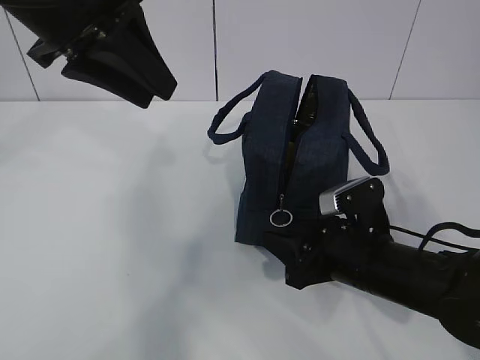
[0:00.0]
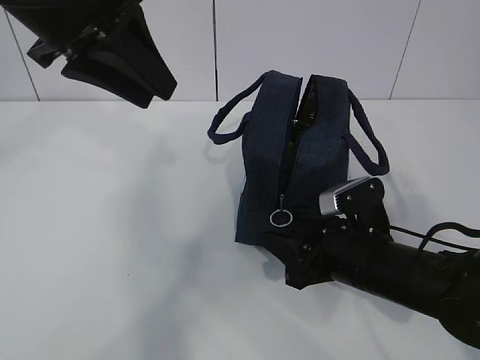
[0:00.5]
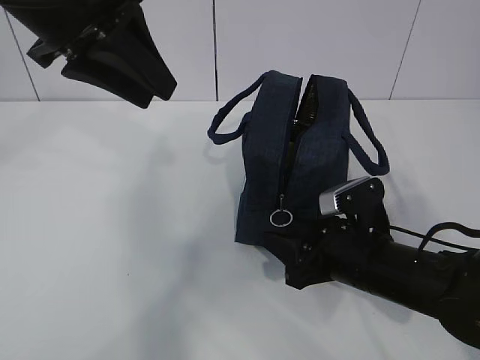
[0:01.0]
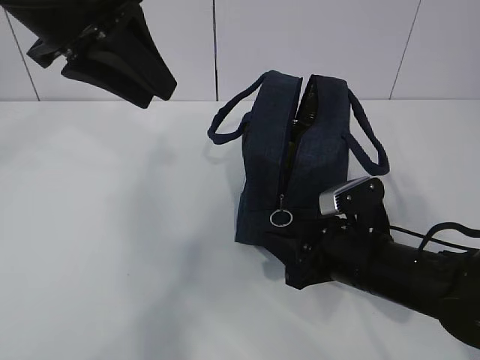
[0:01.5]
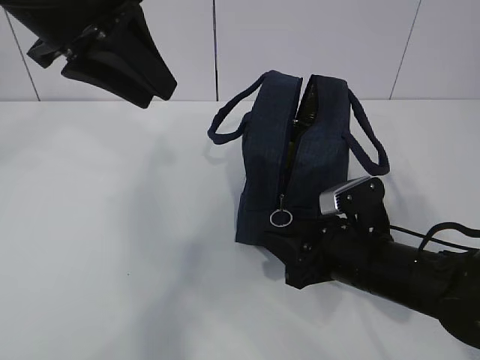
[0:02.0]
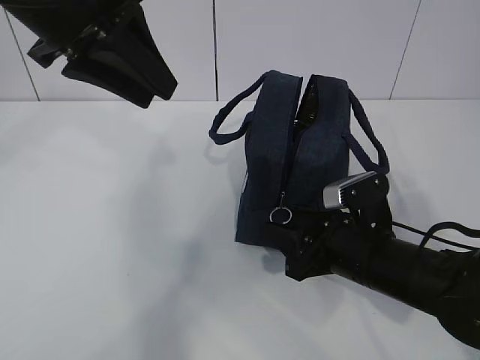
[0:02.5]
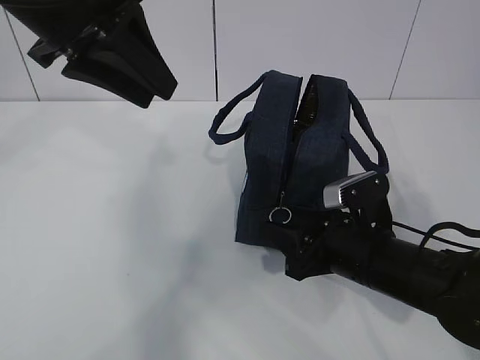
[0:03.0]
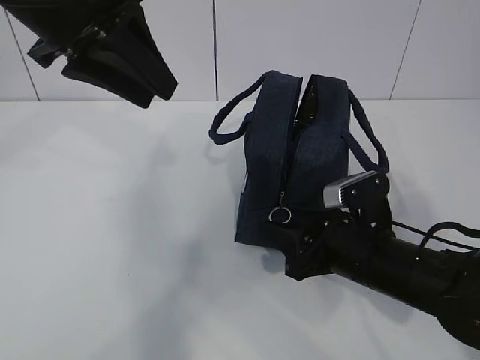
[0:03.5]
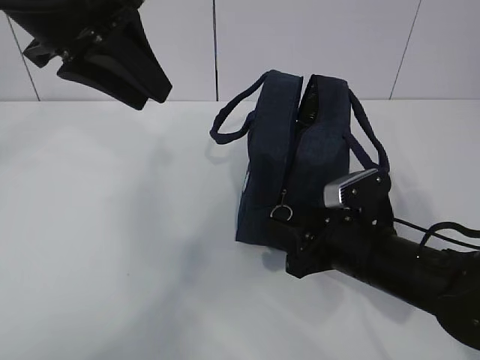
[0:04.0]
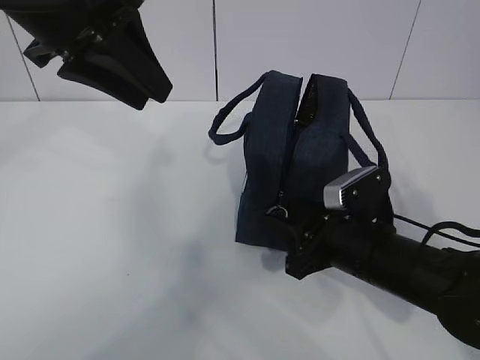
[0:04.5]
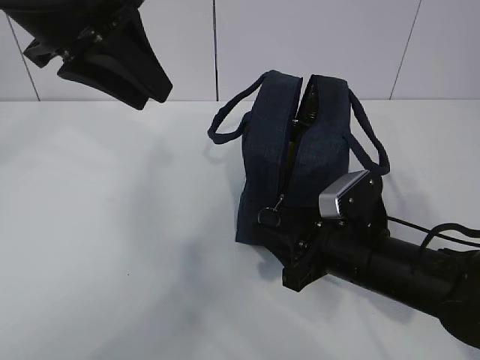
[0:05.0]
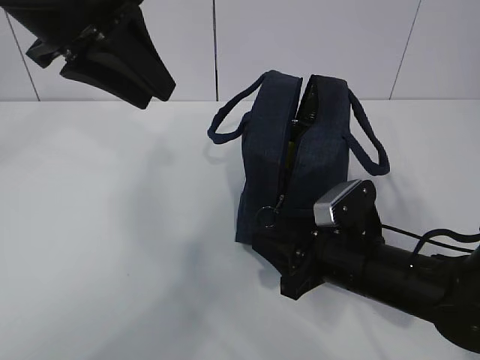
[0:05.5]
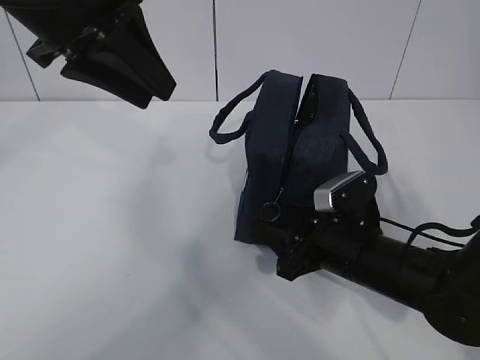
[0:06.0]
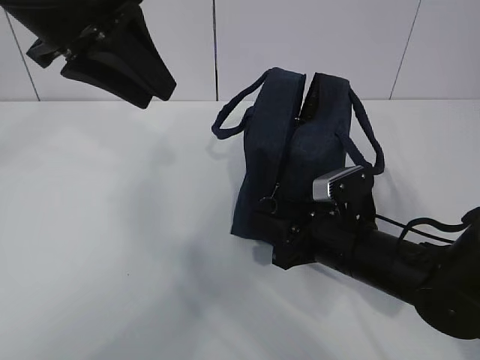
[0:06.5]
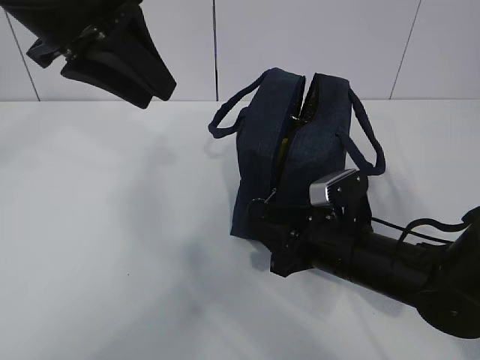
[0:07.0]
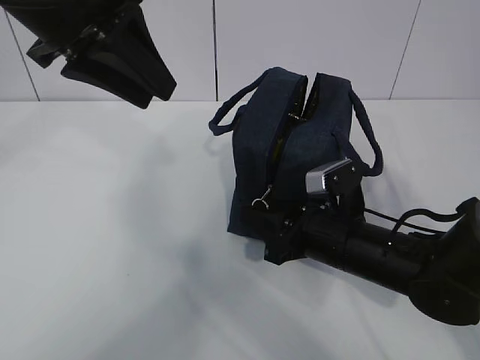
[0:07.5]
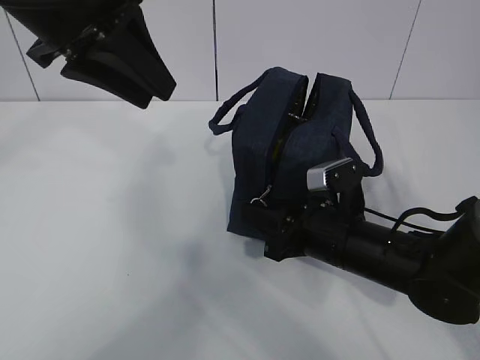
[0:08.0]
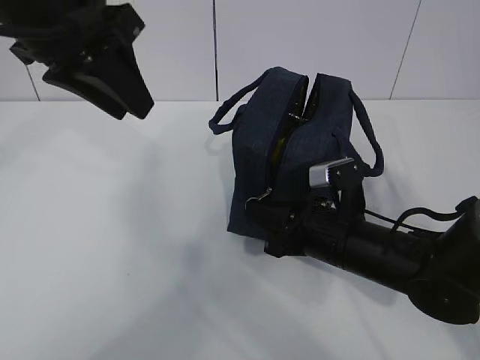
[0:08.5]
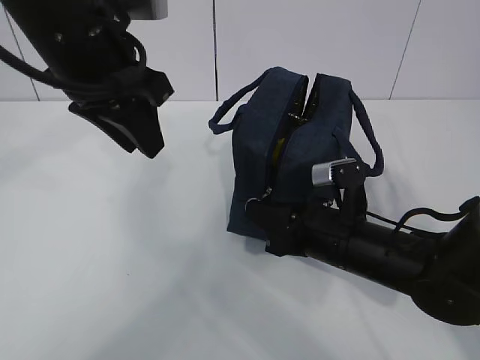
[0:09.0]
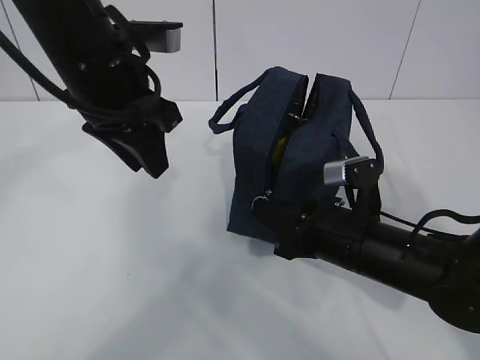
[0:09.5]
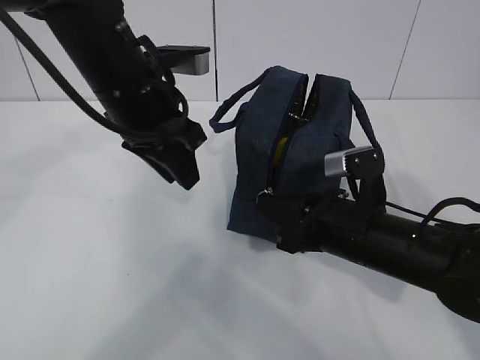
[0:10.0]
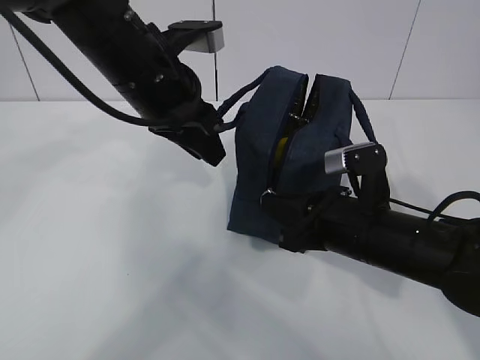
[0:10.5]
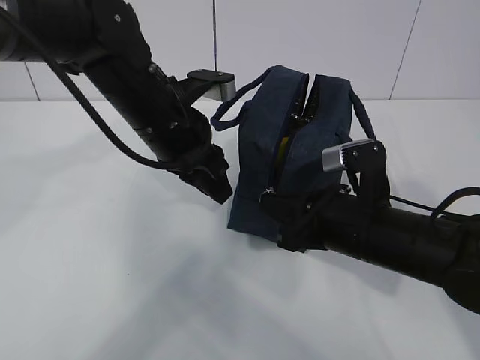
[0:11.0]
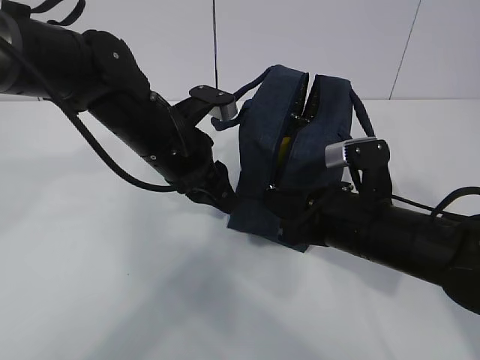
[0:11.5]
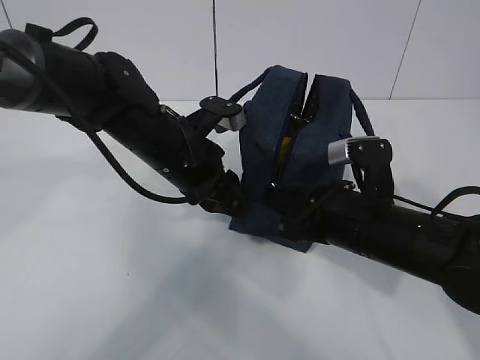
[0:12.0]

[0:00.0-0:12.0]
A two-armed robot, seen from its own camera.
Step, 0:02.5 to 0:08.0: Pull the zipper with your right hand.
0:00.0 to 0:02.0: The two grippers keep their place.
0:02.0 to 0:04.0: The two grippers keep their place.
0:04.0 to 0:08.0: The grippers stay close to where they were, moving slightly.
0:08.0 to 0:10.0: The right gripper closes, while the left gripper shifts some 10 cm downward.
0:10.0 to 0:12.0: The left gripper moves downward, approximately 10 cm.

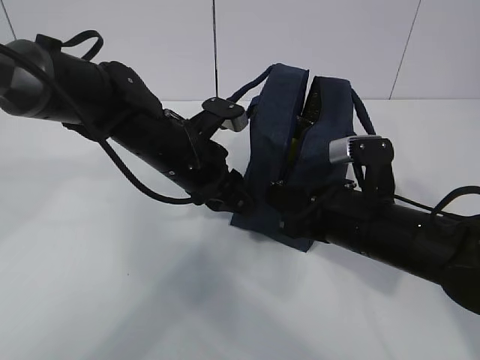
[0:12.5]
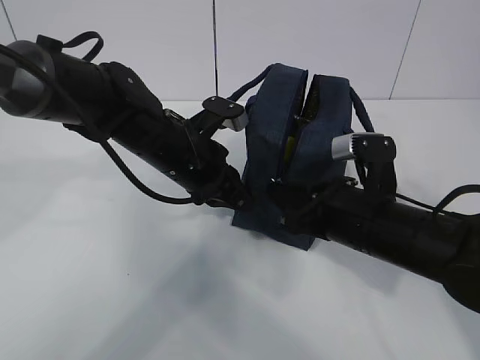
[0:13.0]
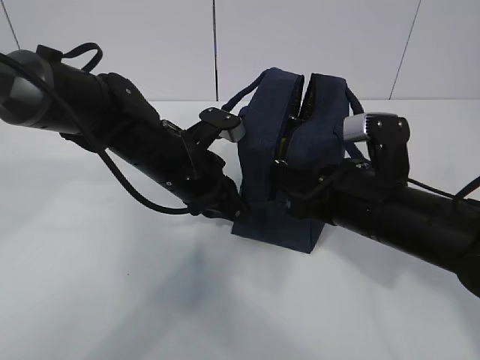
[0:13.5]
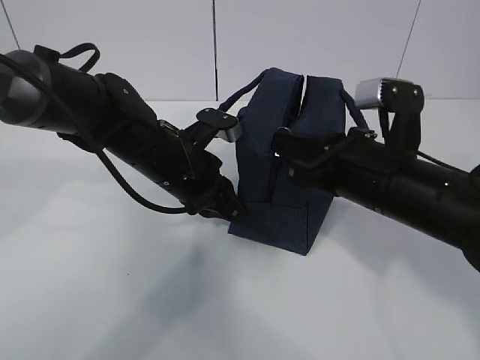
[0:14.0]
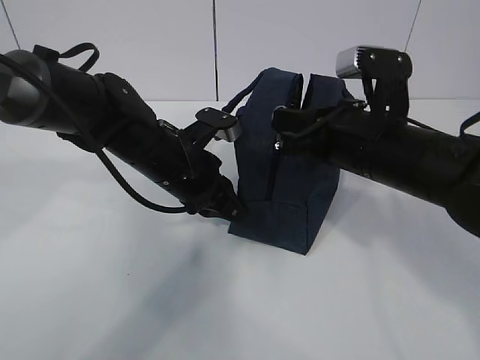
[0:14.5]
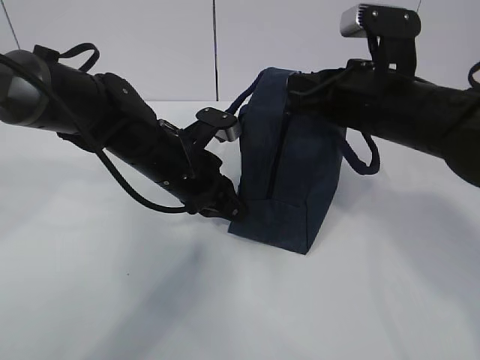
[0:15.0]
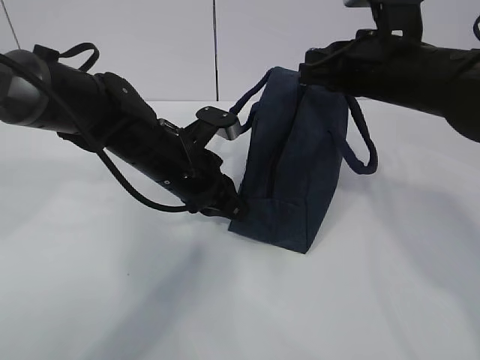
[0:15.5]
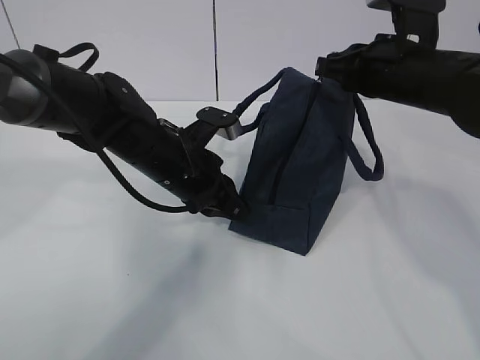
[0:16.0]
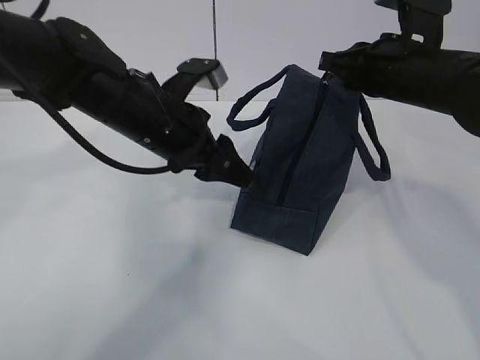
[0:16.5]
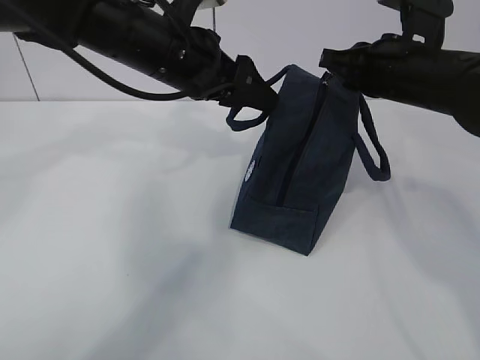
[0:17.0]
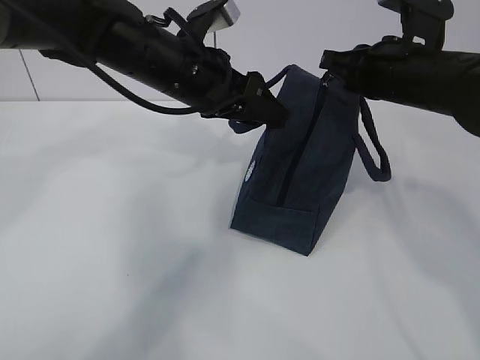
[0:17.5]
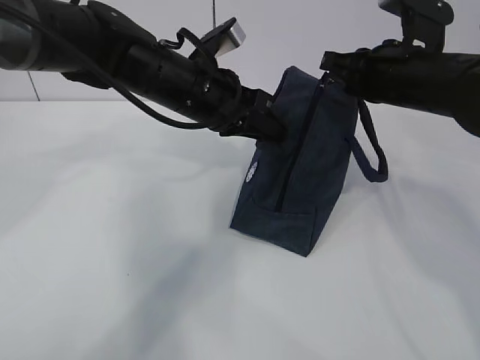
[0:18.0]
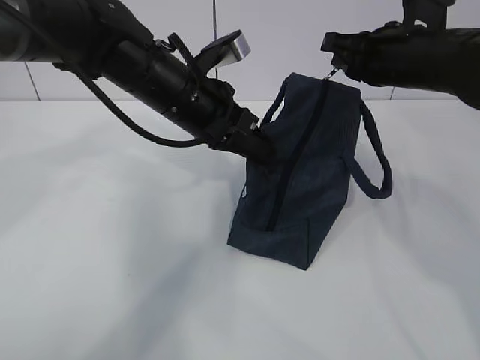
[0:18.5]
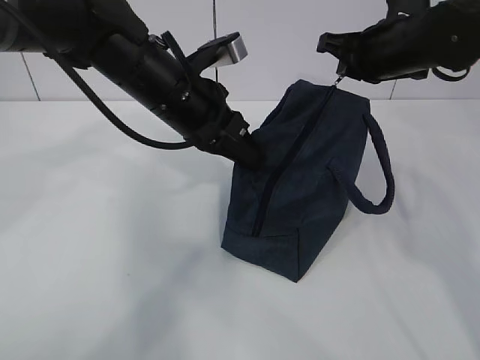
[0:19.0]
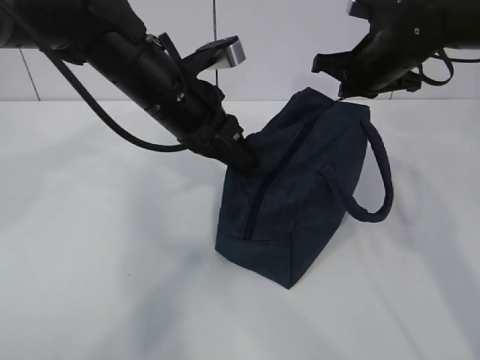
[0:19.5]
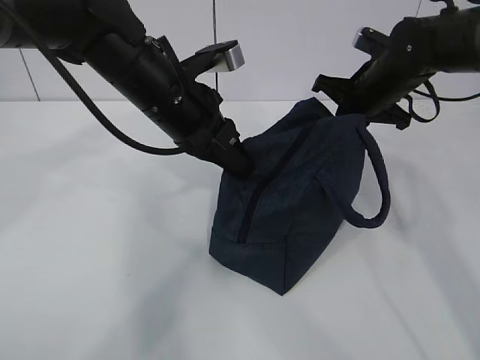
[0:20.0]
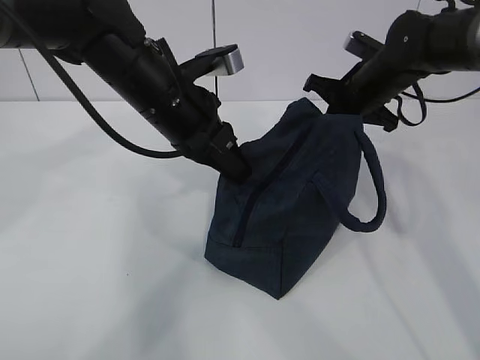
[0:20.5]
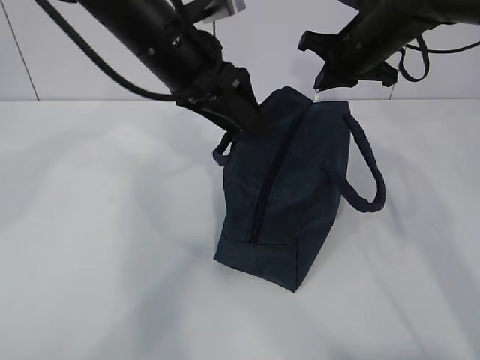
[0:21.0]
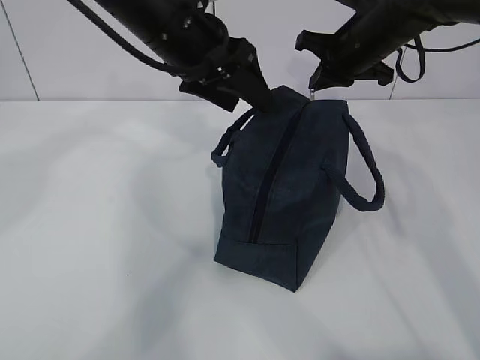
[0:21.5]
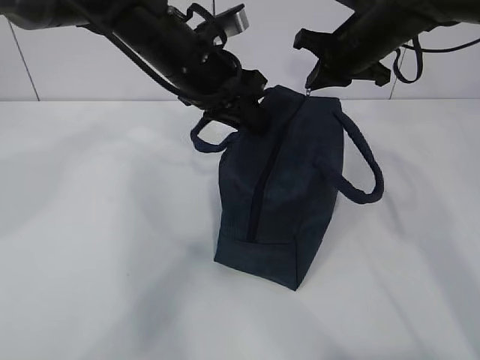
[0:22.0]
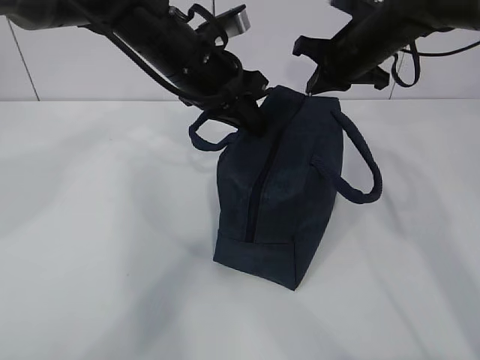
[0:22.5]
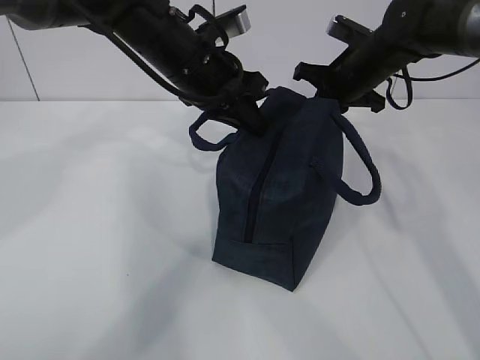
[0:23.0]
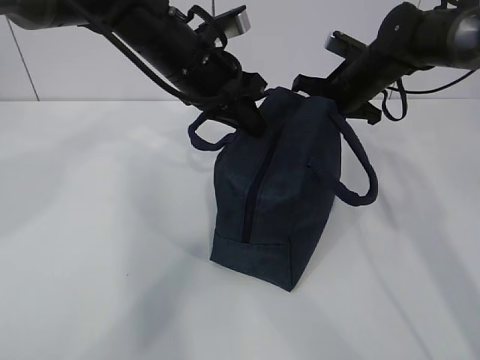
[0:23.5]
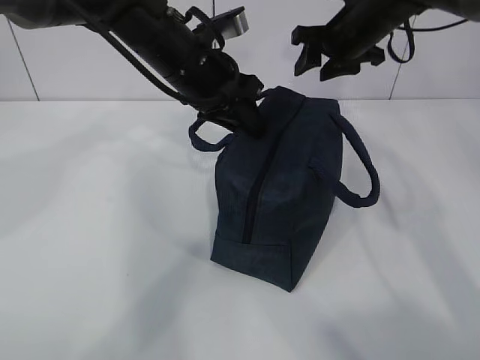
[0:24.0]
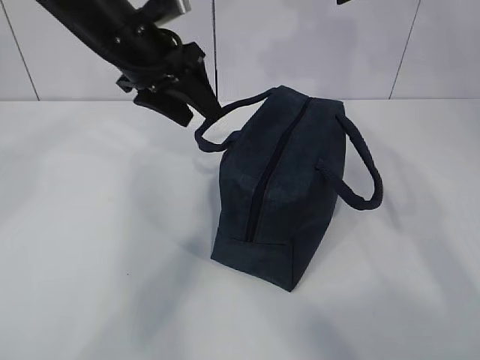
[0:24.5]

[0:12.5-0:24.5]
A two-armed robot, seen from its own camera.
0:12.5 to 0:14.5: The right gripper shifts some 10 cm upward. The left gripper closes its fingers.
0:14.5 to 0:16.5: The left gripper shifts approximately 5 cm upward, and opens, while the right gripper moves forward and to the right, some 10 cm.
0:16.5 to 0:18.5: The left gripper closes up.
0:18.5 to 0:20.5: The right gripper travels forward and downward by roughly 10 cm.
0:20.5 to 0:22.5: The right gripper travels upward by about 5 cm; the left gripper ends up approximately 5 cm from where it was, and opens, then closes again.
0:22.5 to 0:24.5: The right gripper travels upward by about 15 cm, and opens its fingers. The left gripper moves to the left, some 5 cm, and opens its fingers.

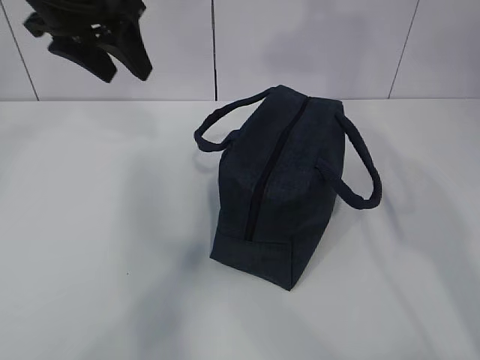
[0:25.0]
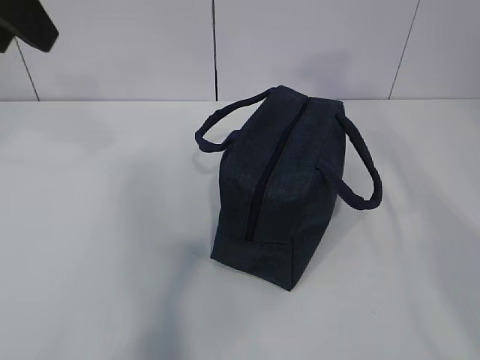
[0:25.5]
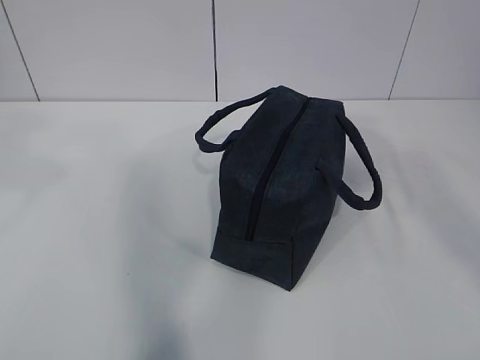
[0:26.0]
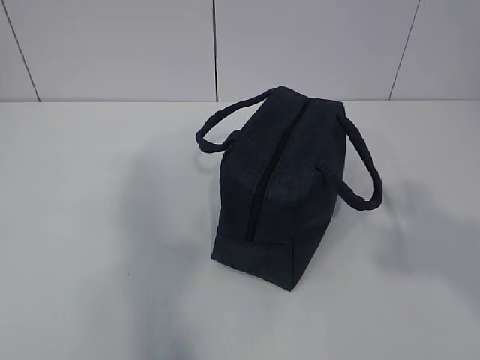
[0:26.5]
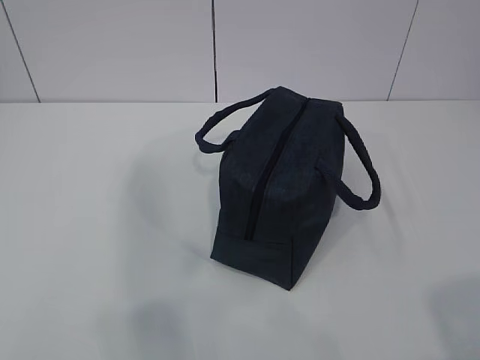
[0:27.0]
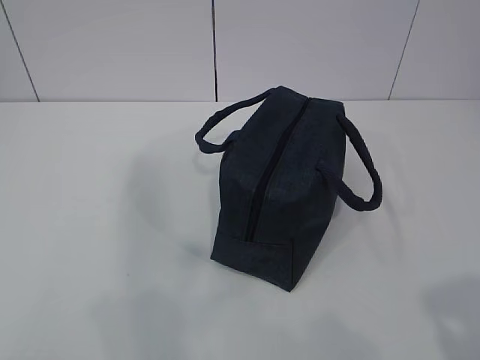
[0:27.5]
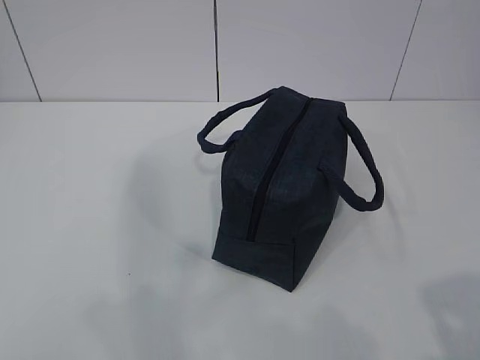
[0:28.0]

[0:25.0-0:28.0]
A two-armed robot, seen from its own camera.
0:25.0 to 0:26.5: Both grippers move backward, some 35 cm.
0:26.5 to 0:28.0: The left gripper is displaced downward by about 15 cm. The right gripper is displaced downward and backward by about 15 cm.
